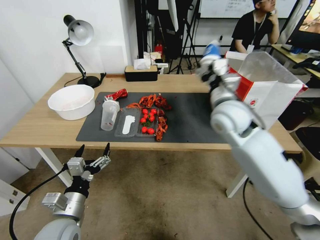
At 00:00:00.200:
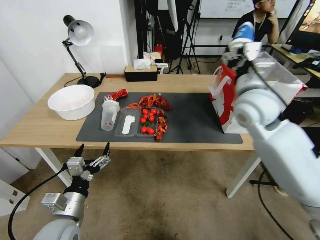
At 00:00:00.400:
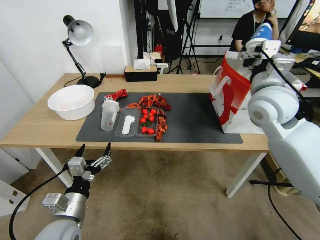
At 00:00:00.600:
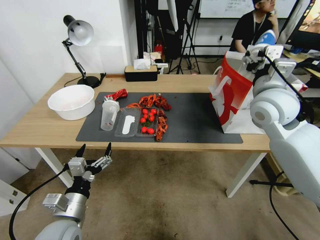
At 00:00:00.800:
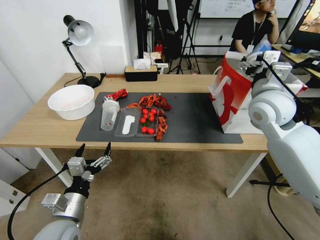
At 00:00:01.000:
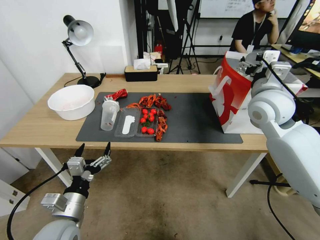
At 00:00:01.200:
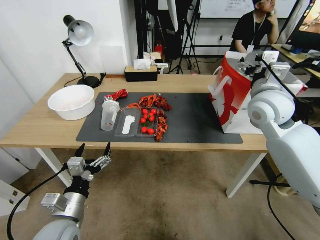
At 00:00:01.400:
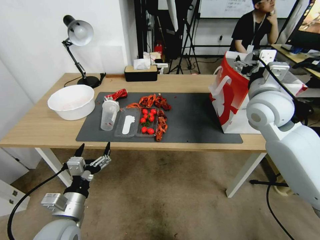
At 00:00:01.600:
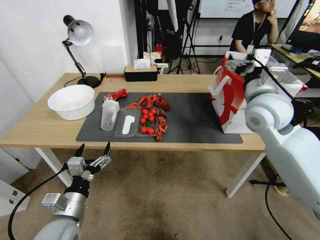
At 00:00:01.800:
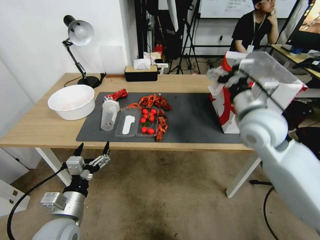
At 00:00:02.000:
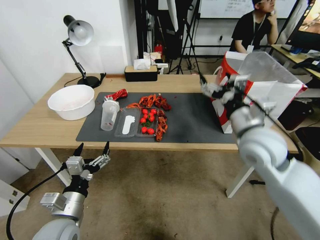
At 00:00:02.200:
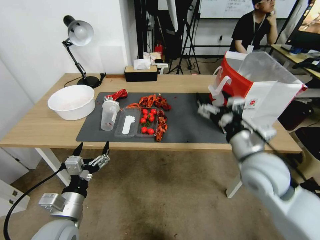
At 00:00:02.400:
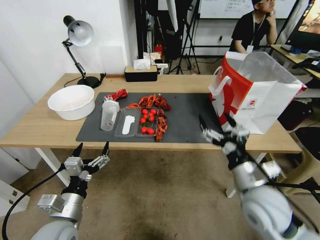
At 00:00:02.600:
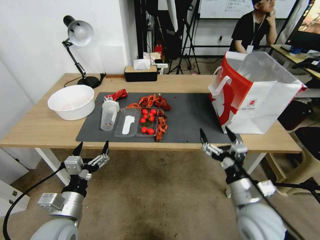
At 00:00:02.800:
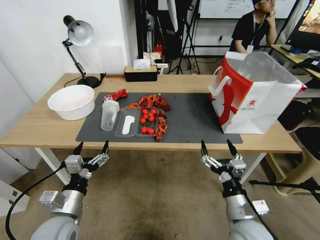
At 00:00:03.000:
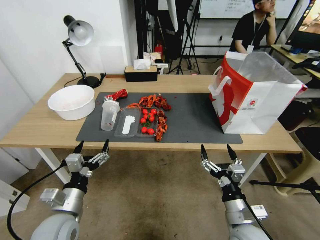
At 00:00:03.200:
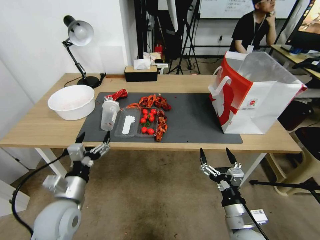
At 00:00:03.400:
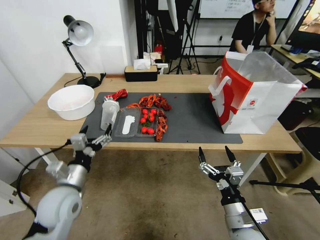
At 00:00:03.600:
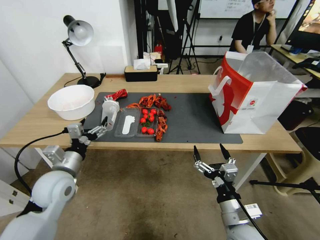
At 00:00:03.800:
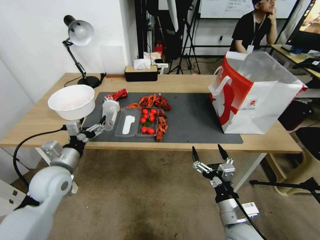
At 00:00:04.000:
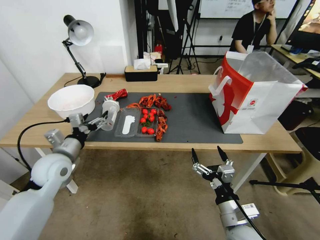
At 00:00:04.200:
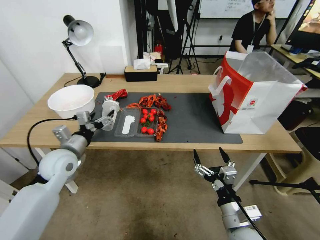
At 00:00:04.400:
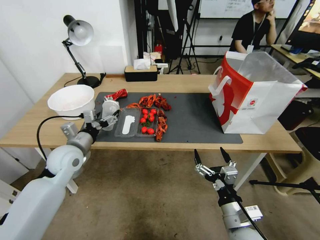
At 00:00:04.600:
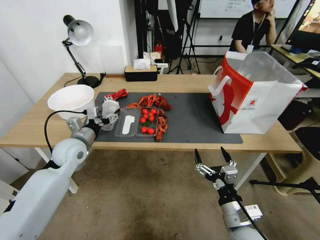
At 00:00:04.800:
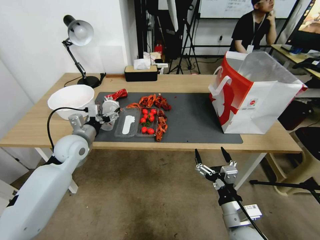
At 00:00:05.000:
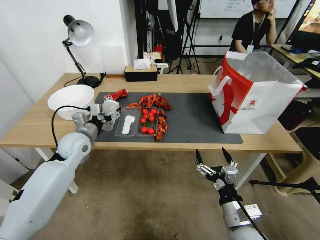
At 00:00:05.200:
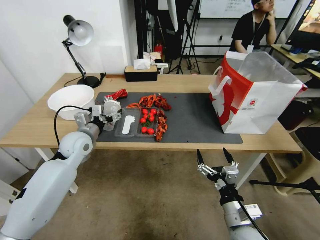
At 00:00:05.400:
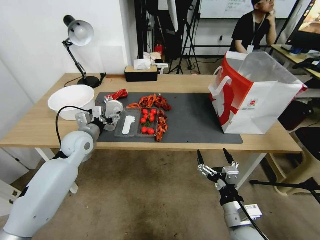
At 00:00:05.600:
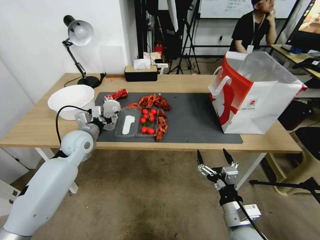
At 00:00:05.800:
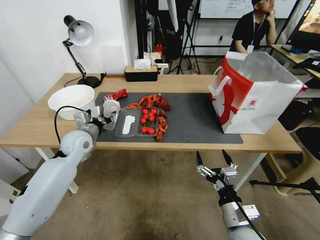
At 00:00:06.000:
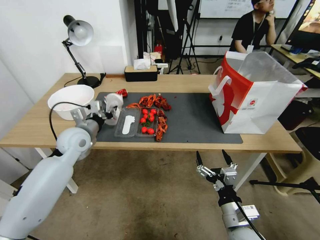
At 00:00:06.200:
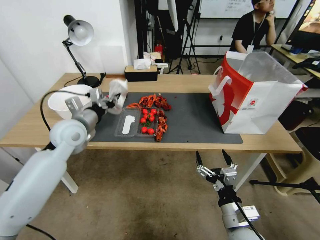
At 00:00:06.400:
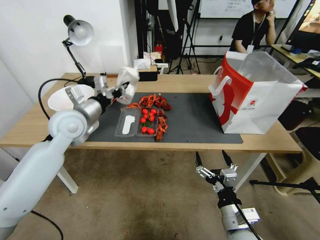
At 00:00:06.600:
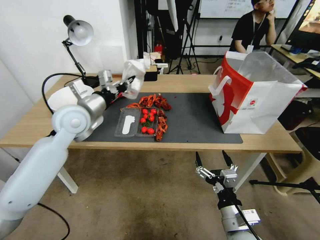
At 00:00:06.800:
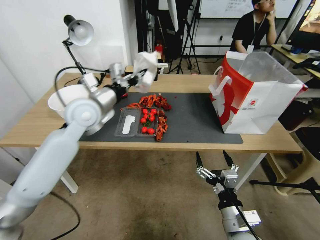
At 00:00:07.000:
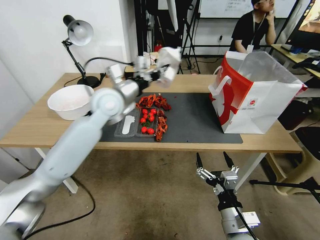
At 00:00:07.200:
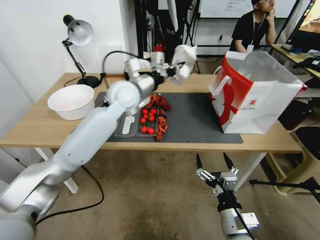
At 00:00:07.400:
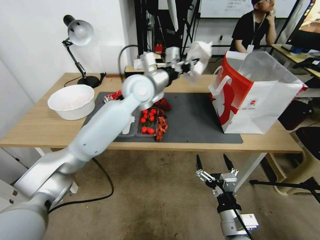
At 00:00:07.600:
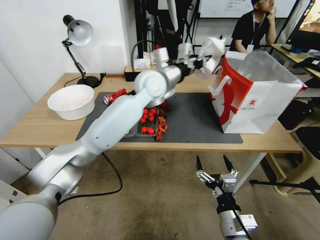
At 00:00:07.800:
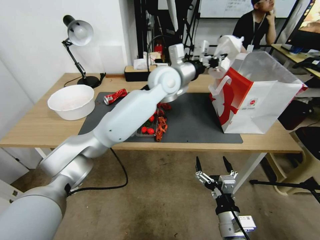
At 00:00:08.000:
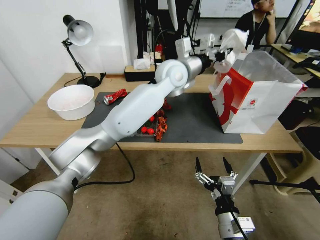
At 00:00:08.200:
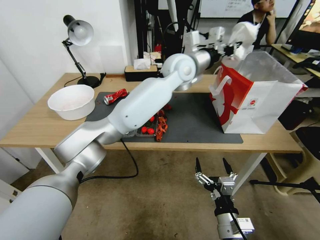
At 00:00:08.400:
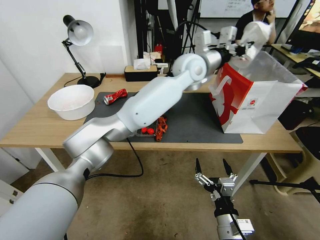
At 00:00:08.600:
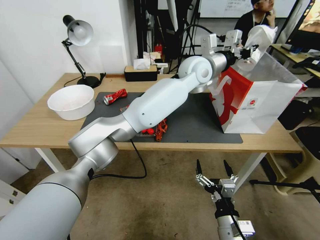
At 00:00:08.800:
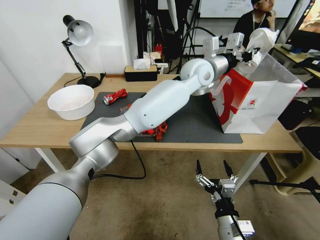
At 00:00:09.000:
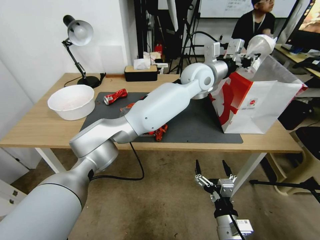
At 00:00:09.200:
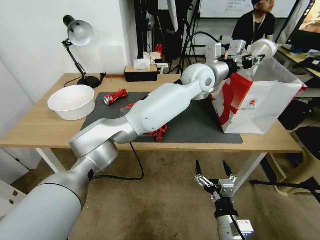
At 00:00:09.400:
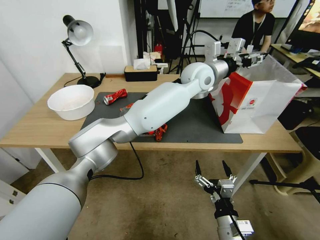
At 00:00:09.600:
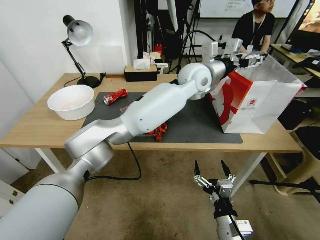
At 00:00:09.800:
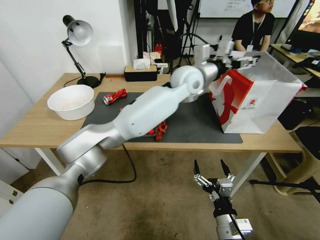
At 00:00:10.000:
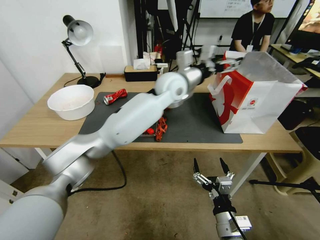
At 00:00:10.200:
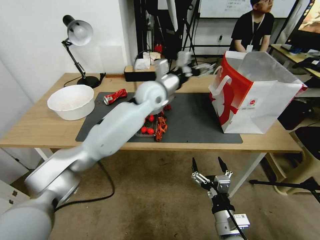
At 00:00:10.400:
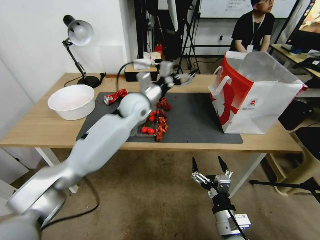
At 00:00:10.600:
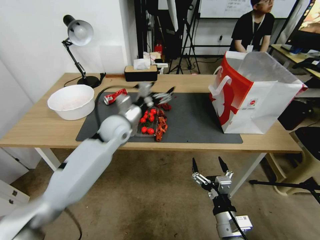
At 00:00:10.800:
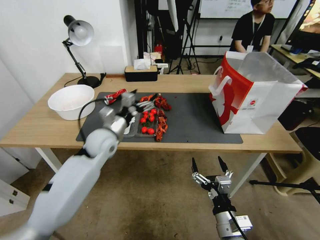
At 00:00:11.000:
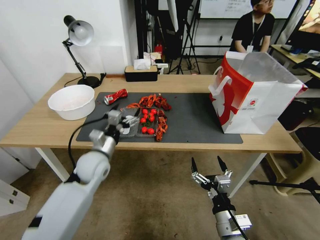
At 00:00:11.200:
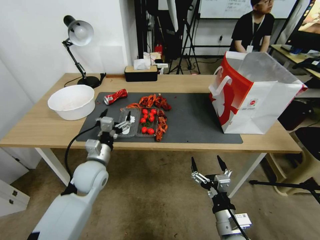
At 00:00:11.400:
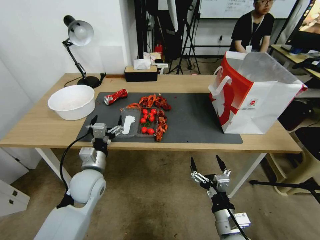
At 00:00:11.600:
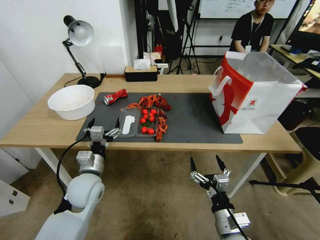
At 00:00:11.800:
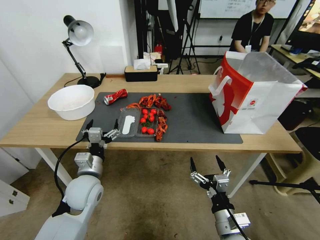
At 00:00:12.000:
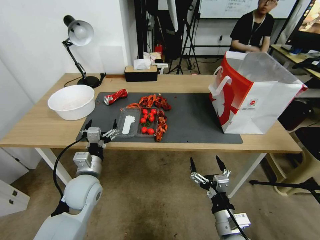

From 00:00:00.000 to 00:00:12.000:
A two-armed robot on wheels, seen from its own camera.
From 00:00:00.000 to 00:00:01.600: The right gripper heads to the right and upward, covering roughly 10 cm.
From 00:00:01.600 to 00:00:03.000: The right gripper travels downward and backward by some 35 cm.
From 00:00:03.000 to 00:00:04.400: The left gripper heads forward, covering approximately 15 cm.
From 00:00:04.400 to 00:00:06.000: The left gripper shifts by about 5 cm, and closes.
From 00:00:06.000 to 00:00:07.600: The left gripper shifts some 30 cm to the right and upward.
From 00:00:07.600 to 00:00:09.000: The left gripper heads to the right, covering approximately 15 cm.
From 00:00:09.000 to 00:00:10.400: The left gripper shifts approximately 20 cm to the left and downward, and opens up.
From 00:00:10.400 to 00:00:12.000: The left gripper goes approximately 30 cm backward, downward and to the left.

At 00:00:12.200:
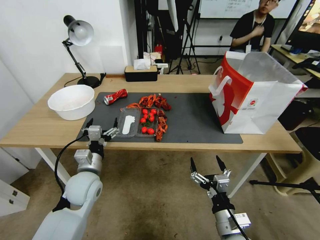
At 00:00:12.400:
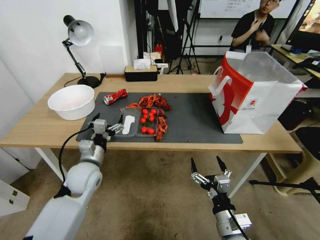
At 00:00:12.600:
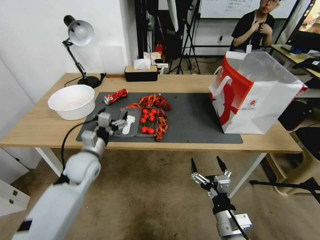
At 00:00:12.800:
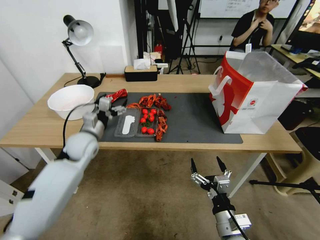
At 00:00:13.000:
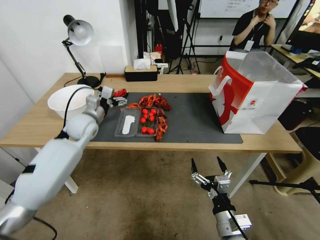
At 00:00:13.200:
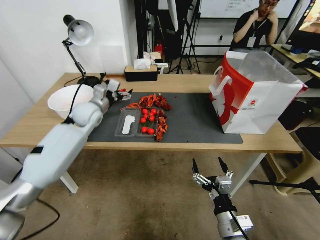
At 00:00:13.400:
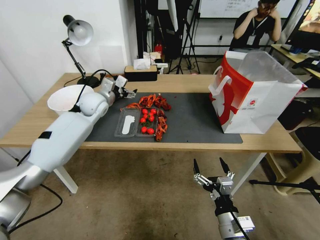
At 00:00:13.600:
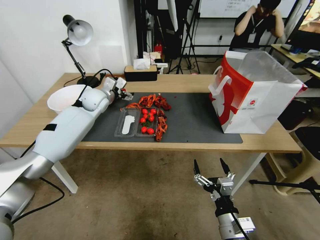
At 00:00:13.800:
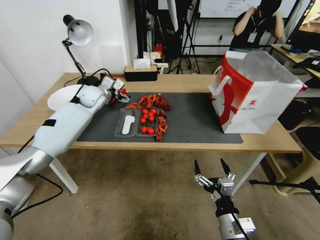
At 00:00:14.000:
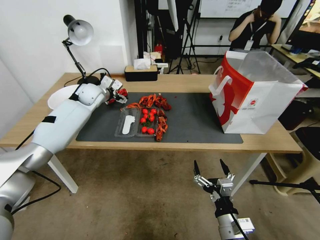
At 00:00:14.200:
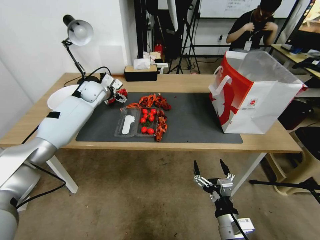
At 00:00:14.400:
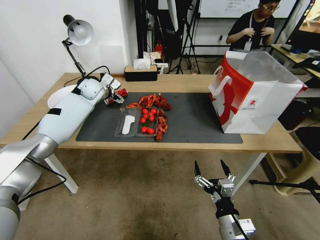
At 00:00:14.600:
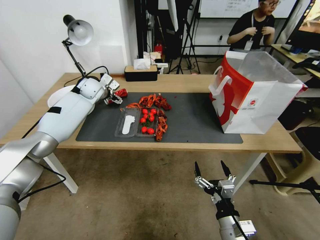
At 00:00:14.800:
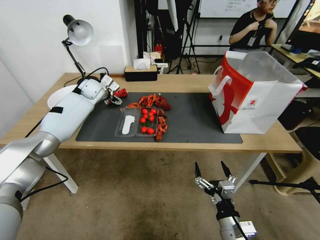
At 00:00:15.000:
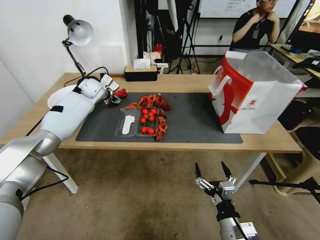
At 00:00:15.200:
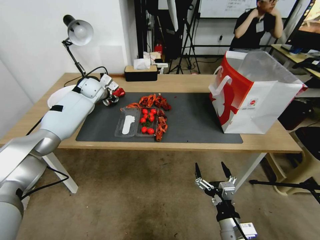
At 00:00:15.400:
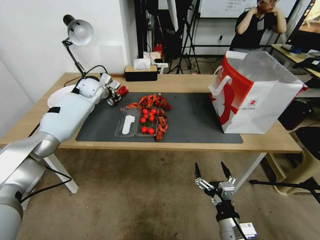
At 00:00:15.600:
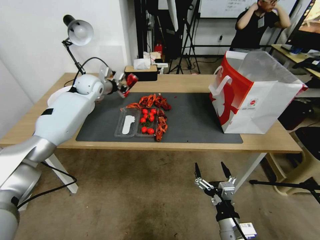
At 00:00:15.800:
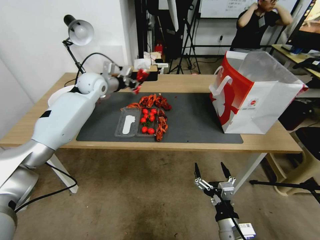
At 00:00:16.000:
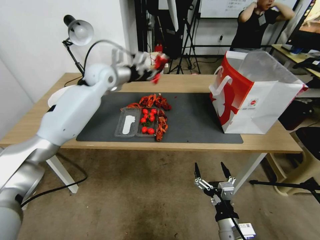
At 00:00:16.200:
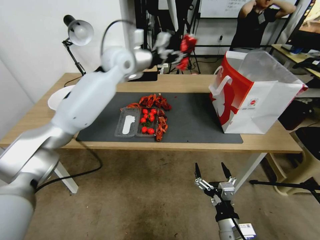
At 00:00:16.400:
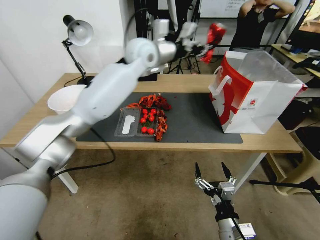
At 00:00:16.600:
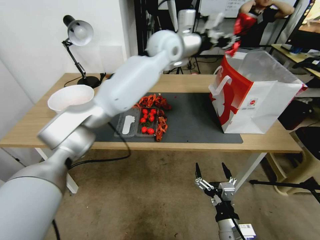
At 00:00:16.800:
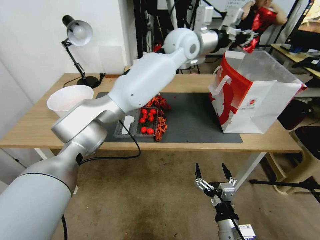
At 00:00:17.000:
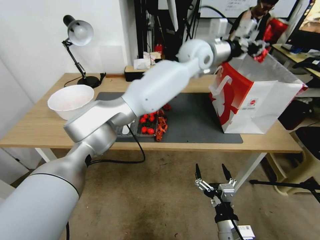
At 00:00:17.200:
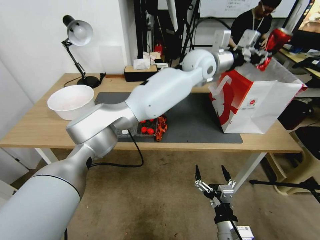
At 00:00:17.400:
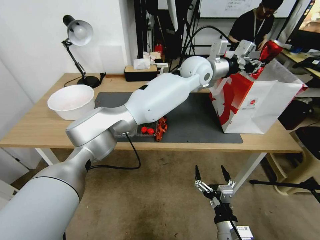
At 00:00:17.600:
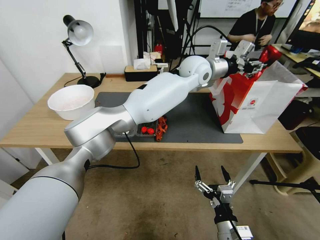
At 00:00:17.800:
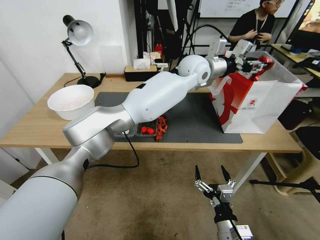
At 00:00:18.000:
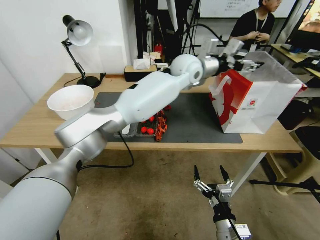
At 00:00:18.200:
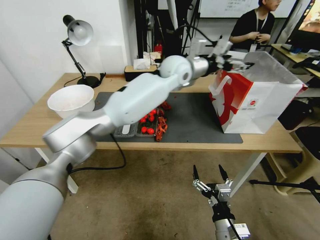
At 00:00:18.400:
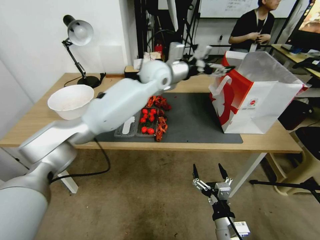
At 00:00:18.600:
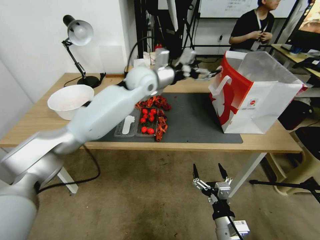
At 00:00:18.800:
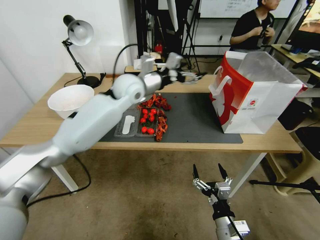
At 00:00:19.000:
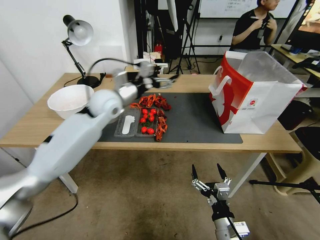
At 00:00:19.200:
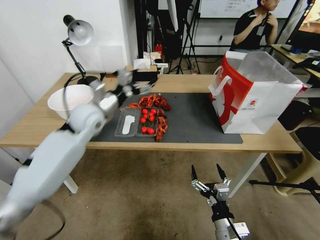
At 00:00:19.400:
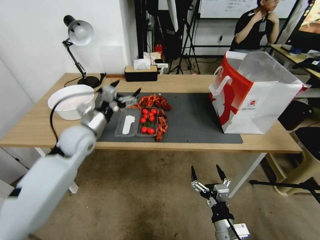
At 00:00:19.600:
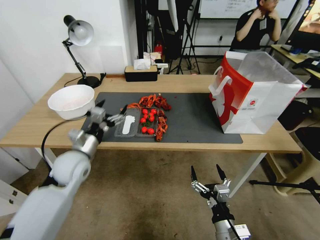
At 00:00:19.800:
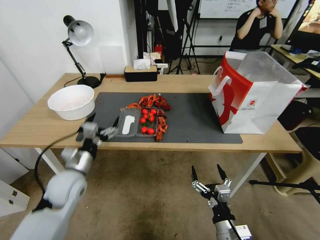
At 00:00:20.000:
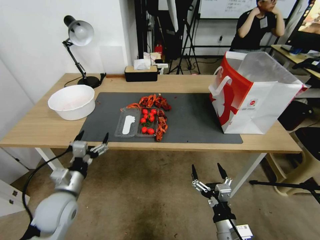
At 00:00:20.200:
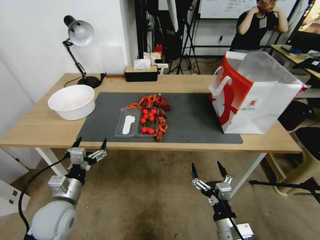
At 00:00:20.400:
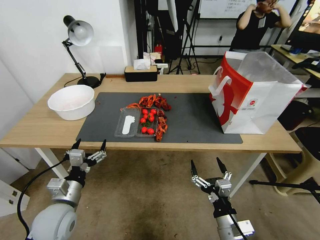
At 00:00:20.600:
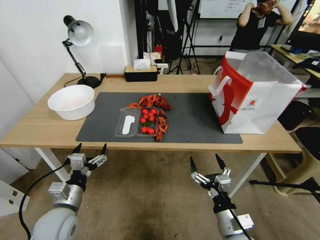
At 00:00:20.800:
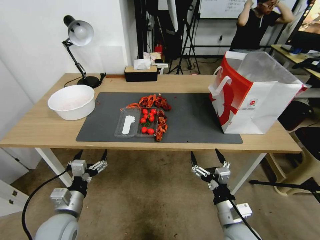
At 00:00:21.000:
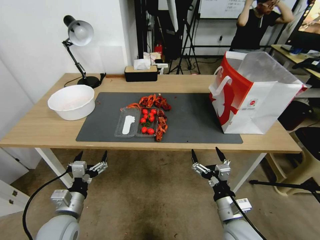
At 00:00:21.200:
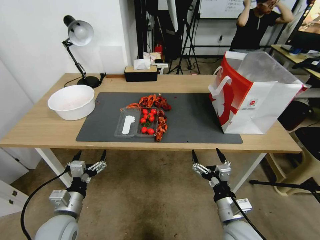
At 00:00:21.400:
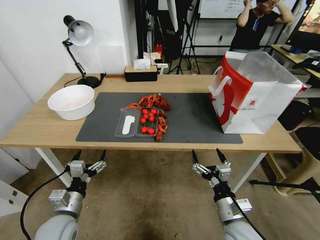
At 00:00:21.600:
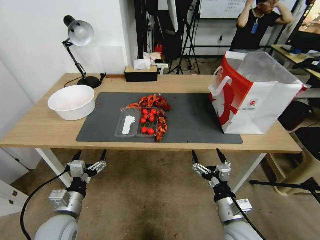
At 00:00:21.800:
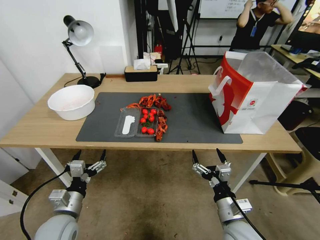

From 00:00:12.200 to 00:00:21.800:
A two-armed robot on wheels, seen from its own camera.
From 00:00:12.200 to 00:00:13.800: The left gripper heads forward and upward, covering approximately 30 cm.
From 00:00:13.800 to 00:00:15.400: The left gripper heads forward, covering approximately 5 cm, and closes its fingers.
From 00:00:15.400 to 00:00:17.000: The left gripper is displaced to the right and upward by about 40 cm.
From 00:00:17.000 to 00:00:18.600: The left gripper shifts some 15 cm to the left and downward, and opens.
From 00:00:18.600 to 00:00:20.200: The left gripper shifts some 40 cm backward, downward and to the left.
From 00:00:20.200 to 00:00:21.800: The right gripper is displaced forward by some 5 cm. Meanwhile the left gripper goes approximately 5 cm backward.
